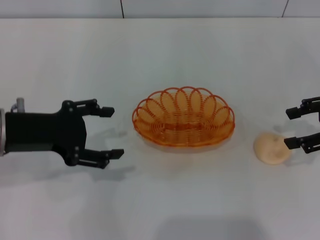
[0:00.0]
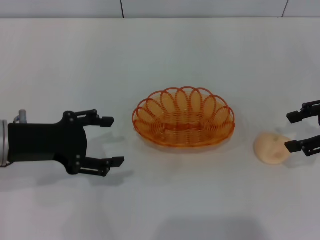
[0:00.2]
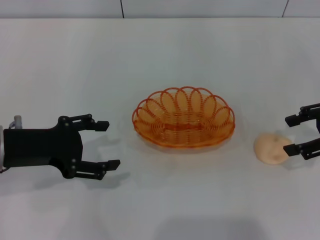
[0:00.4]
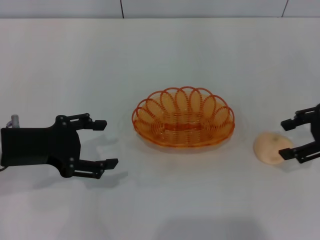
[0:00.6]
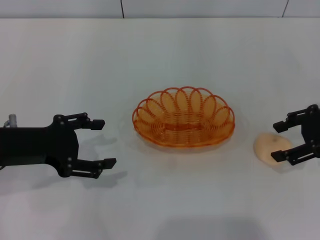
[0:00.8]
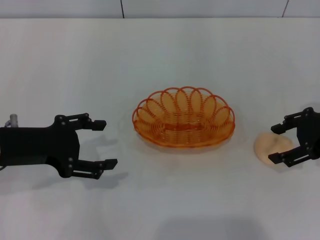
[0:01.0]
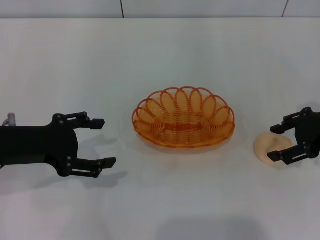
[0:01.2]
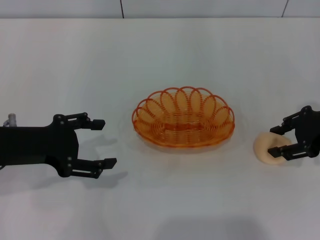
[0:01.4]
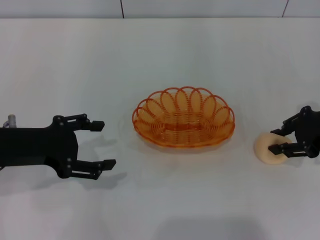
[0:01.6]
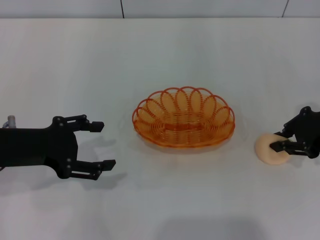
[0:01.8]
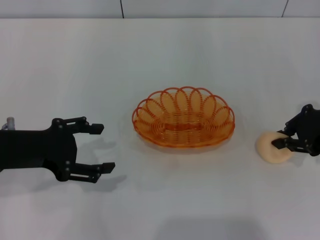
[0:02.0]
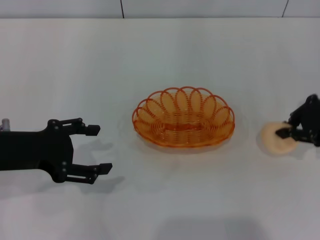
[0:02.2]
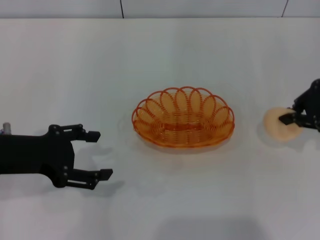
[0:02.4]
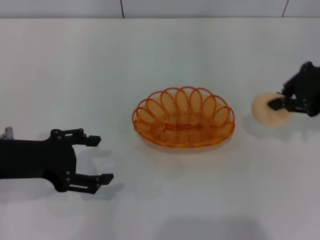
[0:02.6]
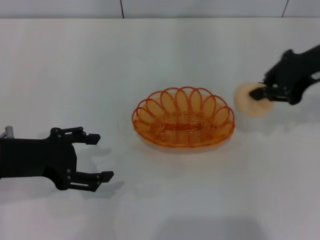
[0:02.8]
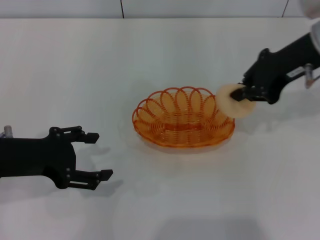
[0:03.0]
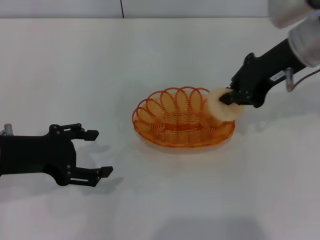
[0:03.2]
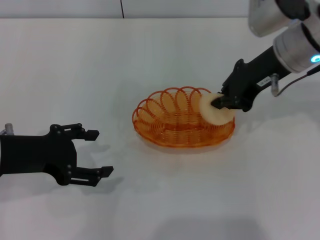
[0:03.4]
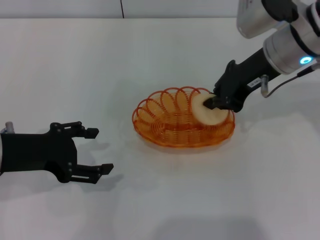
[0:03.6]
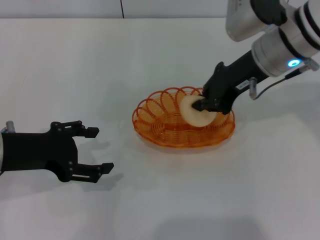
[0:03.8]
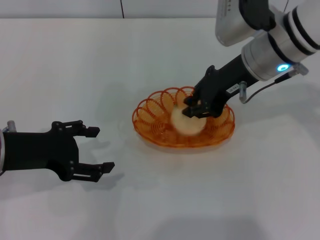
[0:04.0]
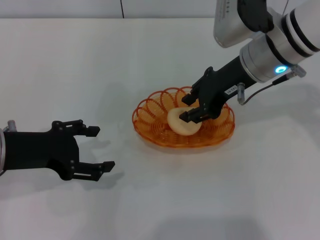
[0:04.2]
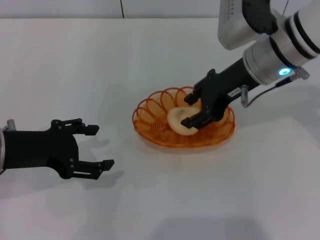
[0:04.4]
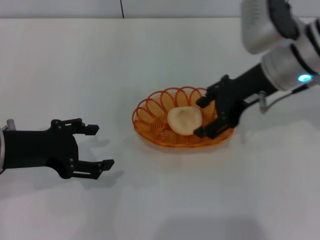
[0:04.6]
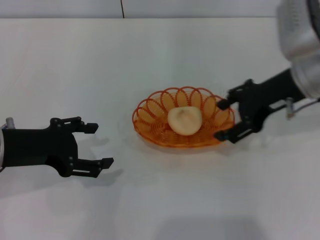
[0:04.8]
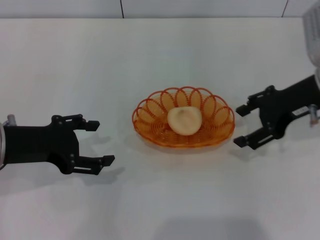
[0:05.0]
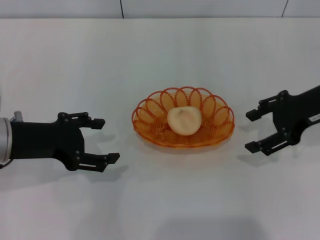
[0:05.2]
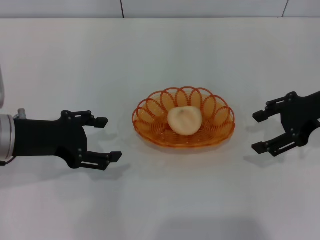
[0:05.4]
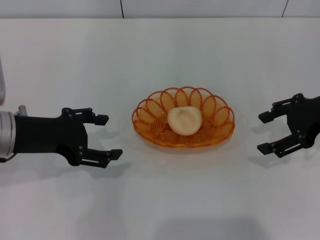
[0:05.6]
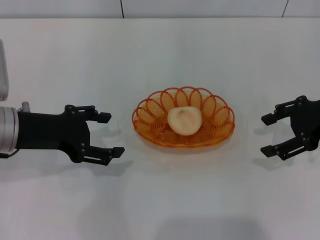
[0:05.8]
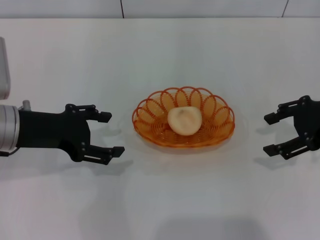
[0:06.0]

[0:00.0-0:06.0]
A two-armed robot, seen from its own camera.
Step, 0:00.0 to 0:02.4: Pick up the egg yolk pastry with the right gripper.
Step, 0:02.8 to 0:05.4: Place the egg yolk pastry into the basket with the right gripper.
0:00.0 to 0:01.6: The grippers move only a little.
0:01.6 to 0:03.0: The right gripper goes some 10 cm upward and to the left, and closes.
0:03.0 to 0:04.4: The right gripper moves to the left, approximately 10 cm, and opens.
0:04.4 to 0:06.0: The right gripper is displaced to the right by some 15 cm, and opens its fingers.
